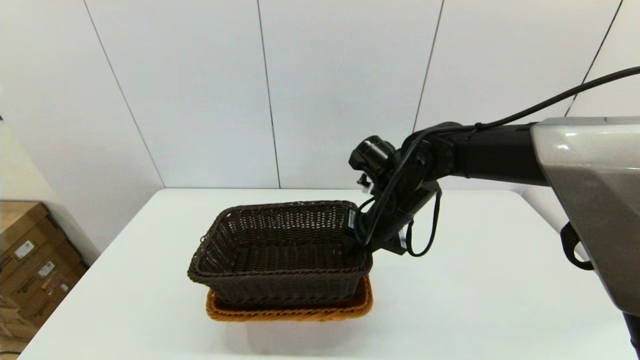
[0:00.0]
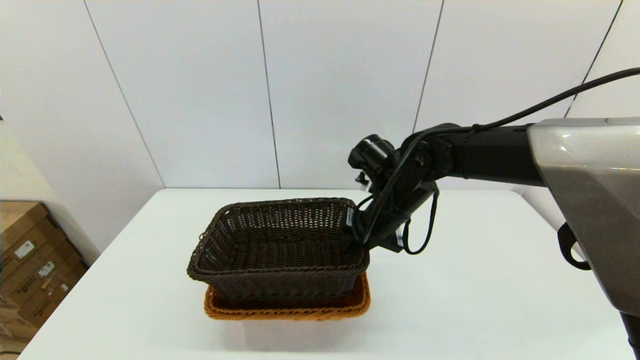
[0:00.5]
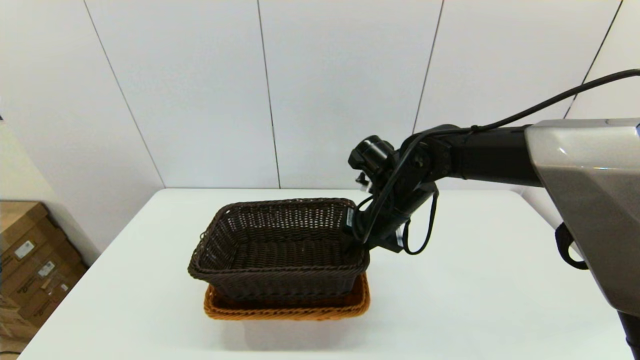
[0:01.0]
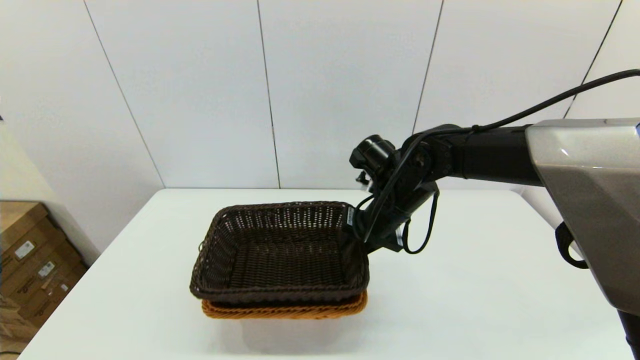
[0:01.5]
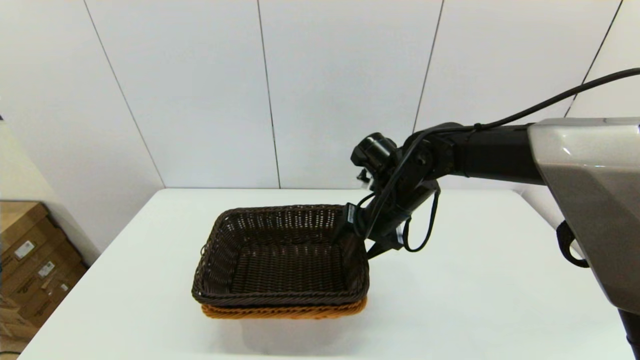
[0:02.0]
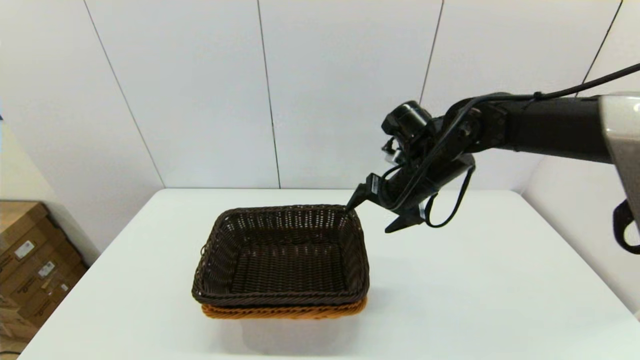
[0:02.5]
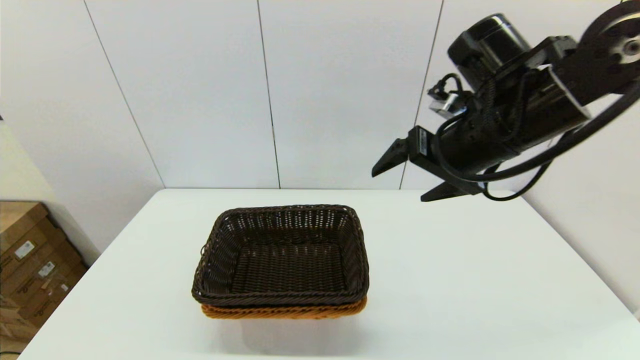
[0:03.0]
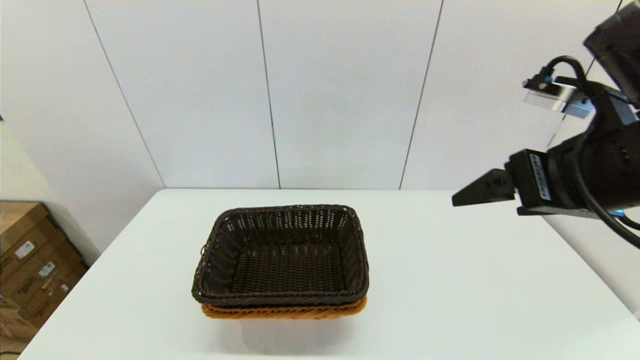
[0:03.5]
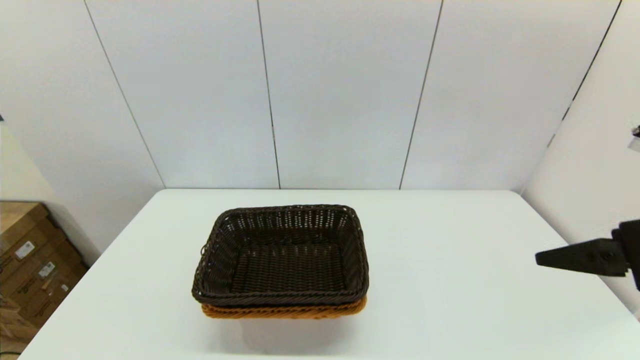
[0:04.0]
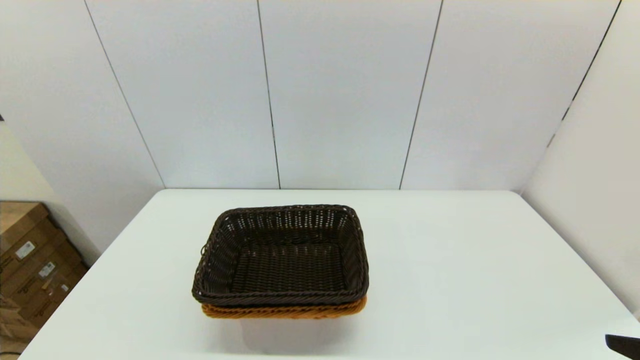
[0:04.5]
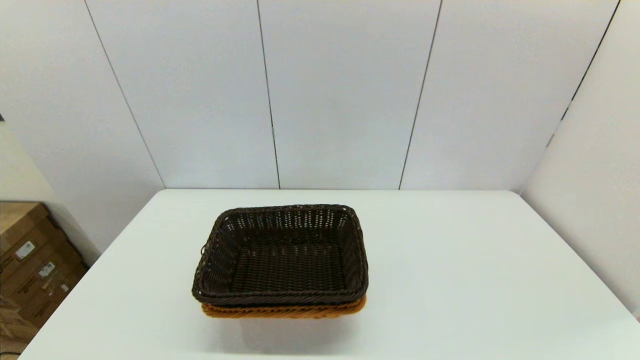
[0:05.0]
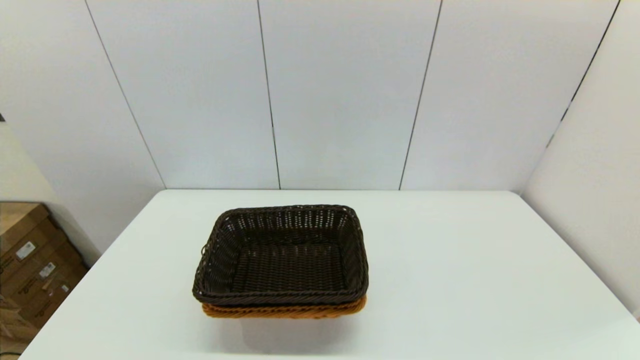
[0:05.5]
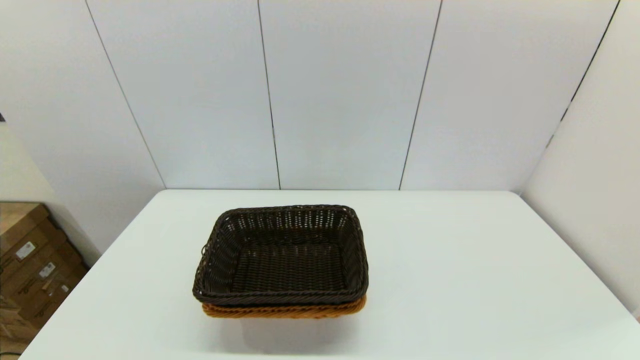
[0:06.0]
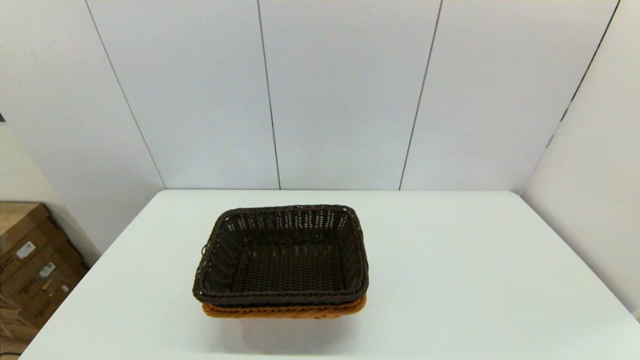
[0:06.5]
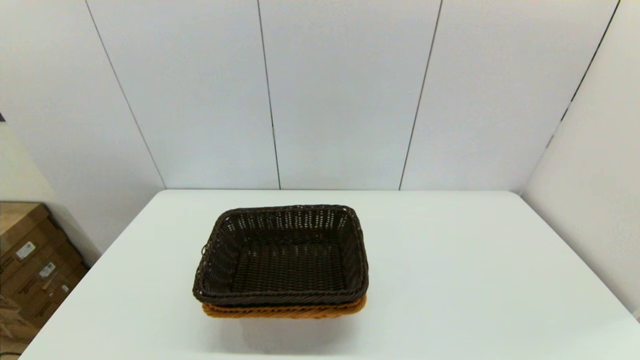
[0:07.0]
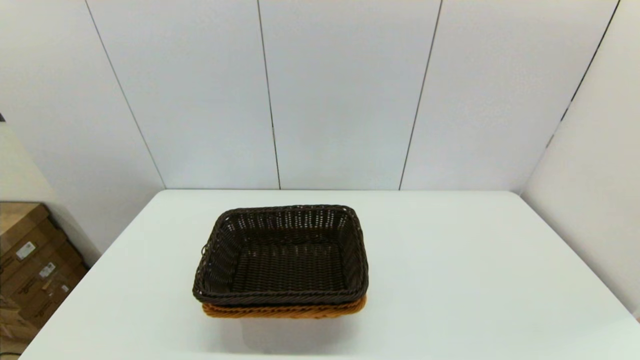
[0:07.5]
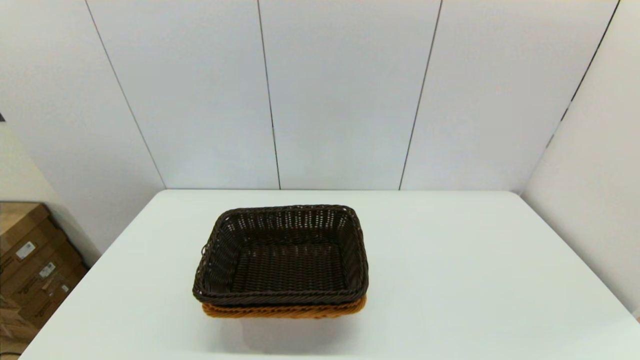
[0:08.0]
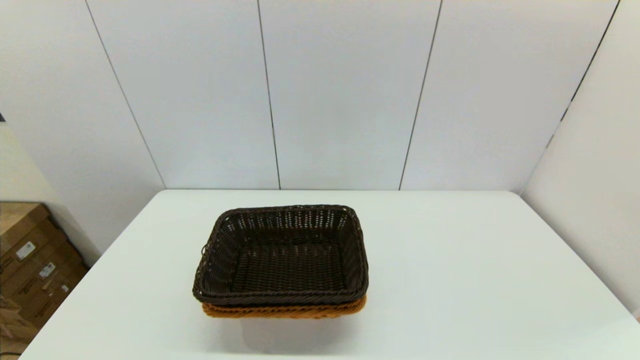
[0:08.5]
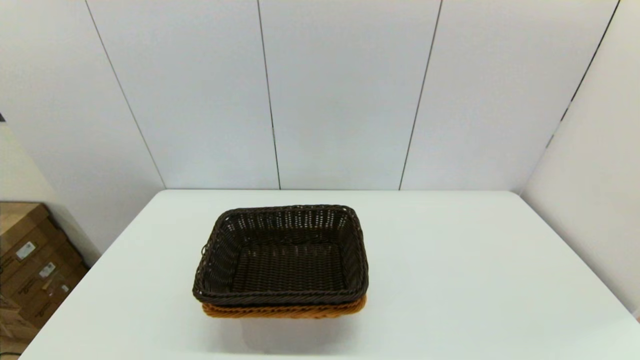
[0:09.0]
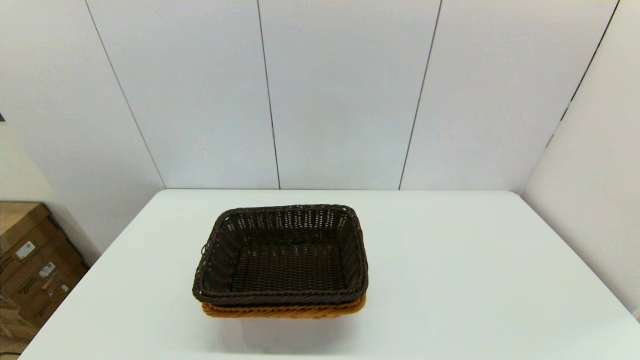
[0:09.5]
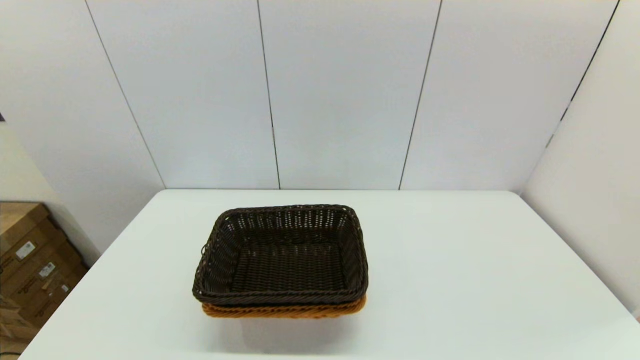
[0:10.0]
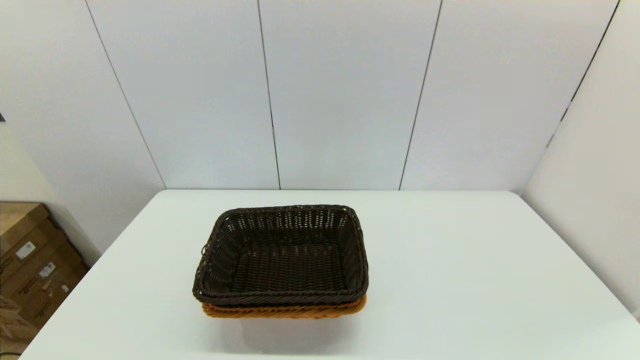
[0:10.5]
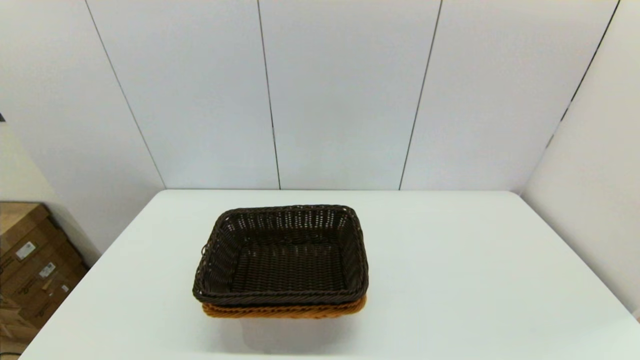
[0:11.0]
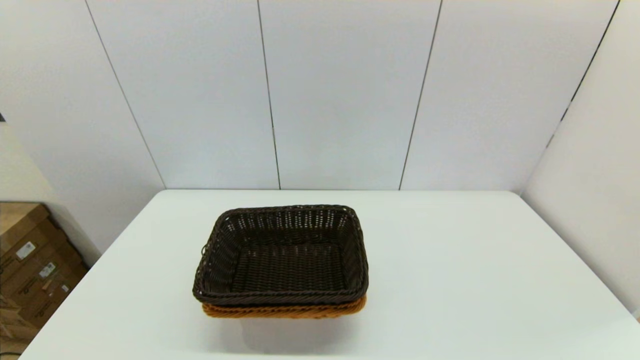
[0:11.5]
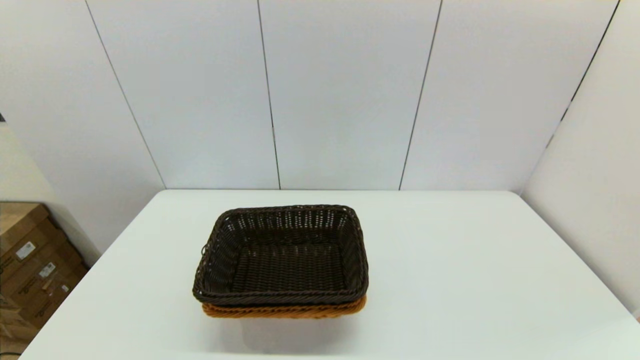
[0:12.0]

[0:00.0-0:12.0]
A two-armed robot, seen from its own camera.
Task of the whole recording: stack a basket on top of another basket.
Step, 0:00.0 to 0:02.5: Place the dark basket into the light color basket with the right gripper.
0:00.0 to 0:02.0: The right gripper opens its fingers.
0:02.0 to 0:04.0: The right gripper heads backward, to the right and upward, covering approximately 30 cm.
0:04.0 to 0:06.0: The right gripper is displaced backward and downward by some 20 cm.
0:08.0 to 0:12.0: Both grippers stay put.
